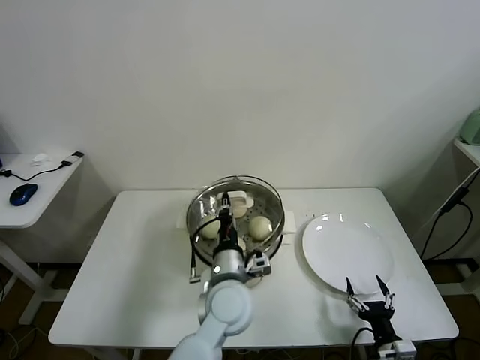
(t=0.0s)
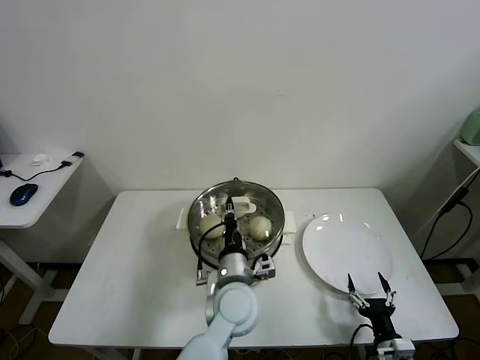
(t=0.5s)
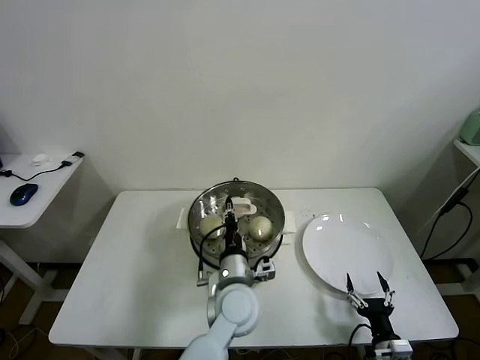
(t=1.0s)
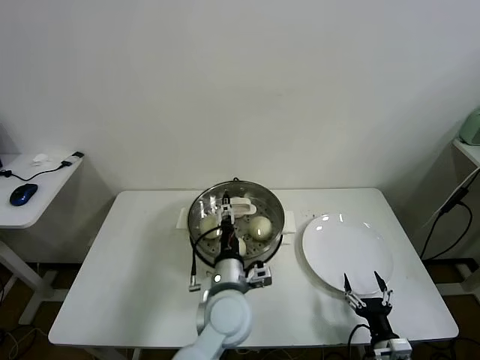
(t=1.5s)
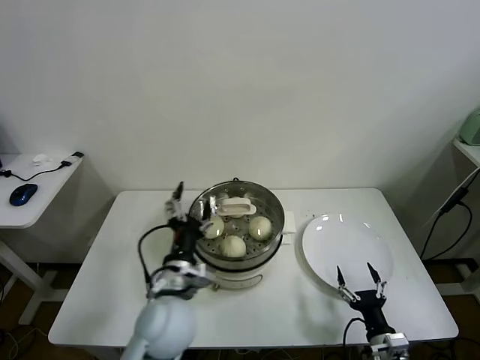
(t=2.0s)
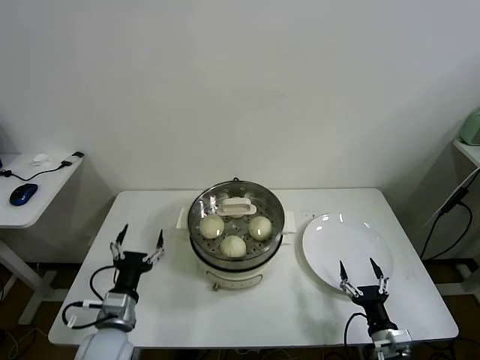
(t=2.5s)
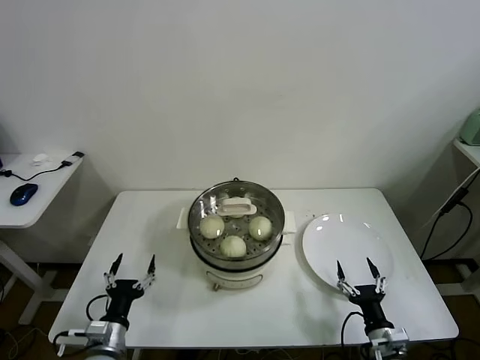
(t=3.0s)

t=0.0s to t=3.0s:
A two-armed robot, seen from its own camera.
Task of the whole recording: take steamed baozi put them in steamer.
t=0.0s to t=1.5s: The left gripper opens its fingers.
t=1.5s to t=3.0s: The left gripper goes about 30 cm to the left.

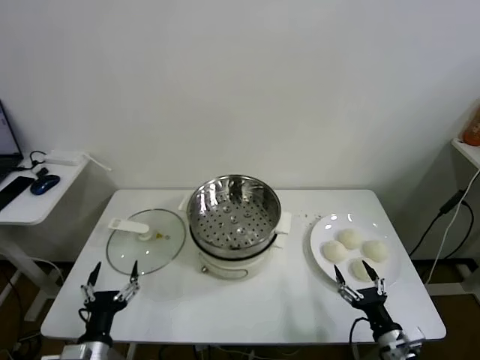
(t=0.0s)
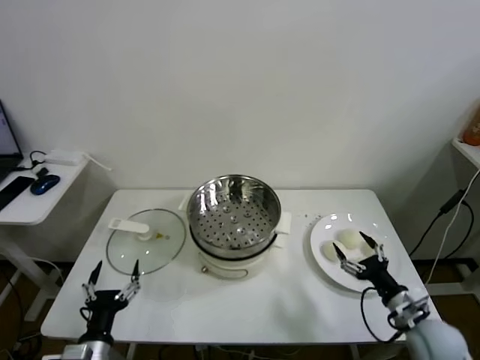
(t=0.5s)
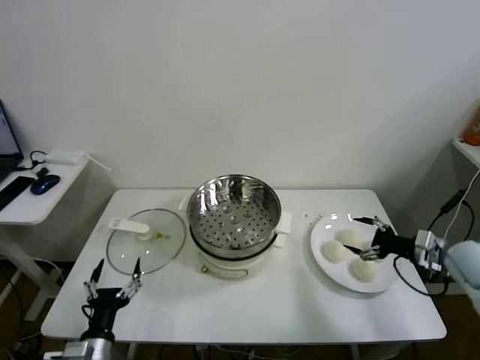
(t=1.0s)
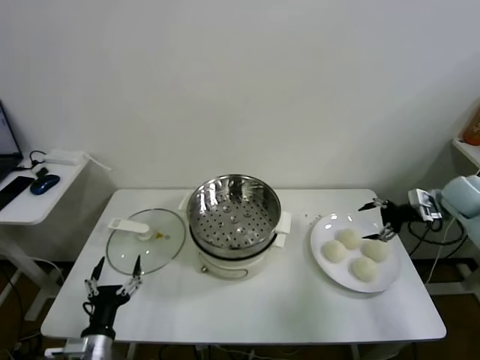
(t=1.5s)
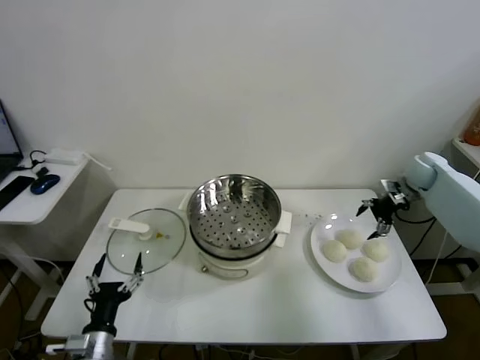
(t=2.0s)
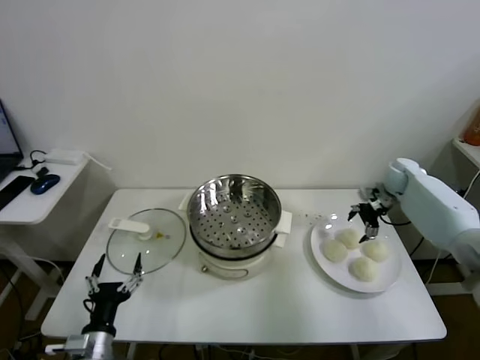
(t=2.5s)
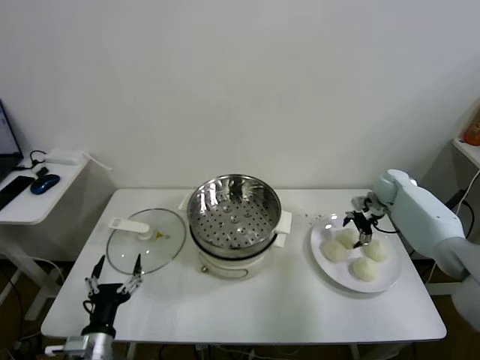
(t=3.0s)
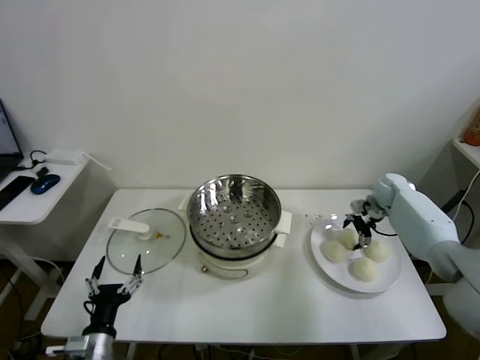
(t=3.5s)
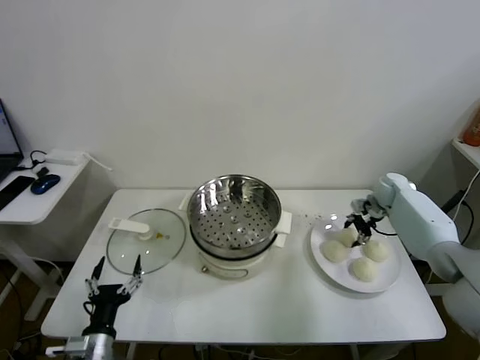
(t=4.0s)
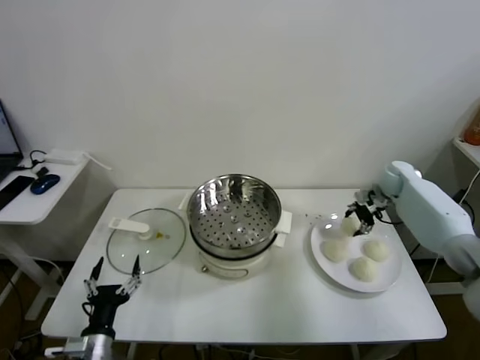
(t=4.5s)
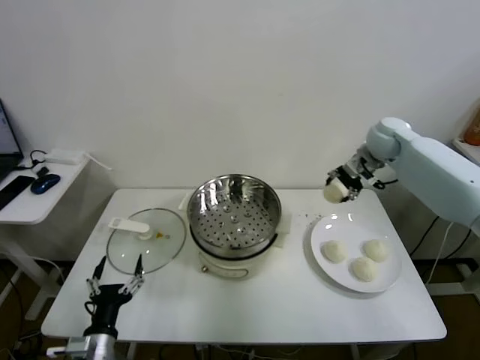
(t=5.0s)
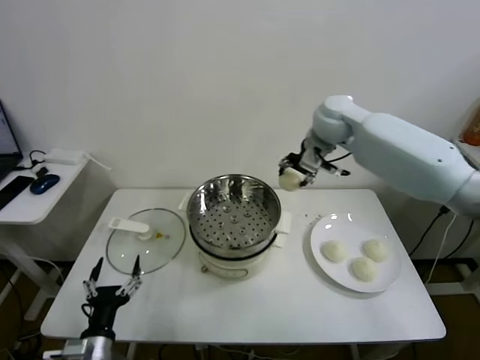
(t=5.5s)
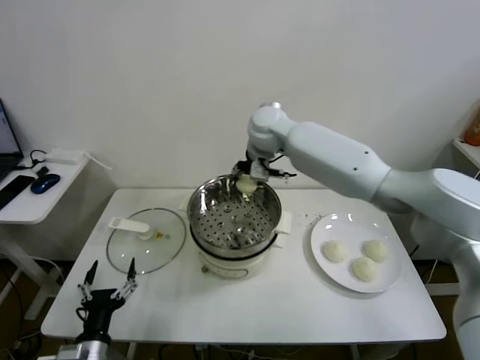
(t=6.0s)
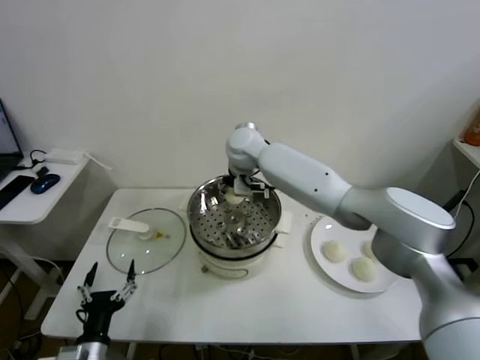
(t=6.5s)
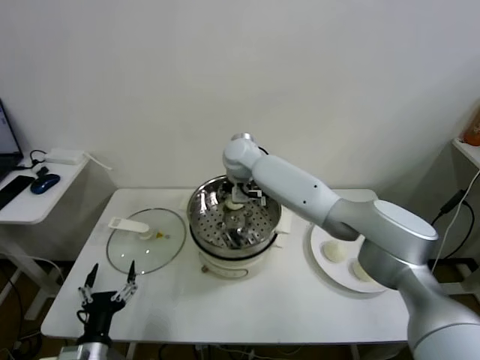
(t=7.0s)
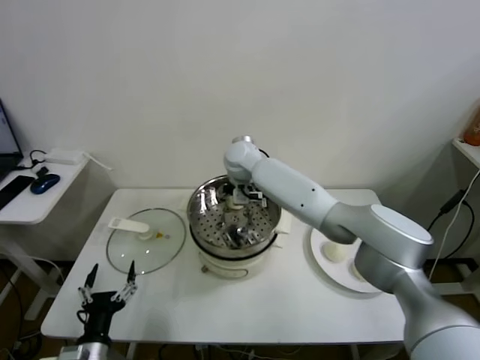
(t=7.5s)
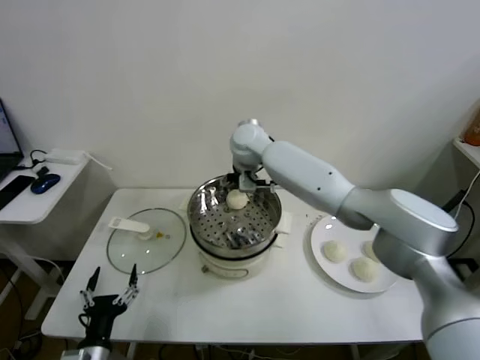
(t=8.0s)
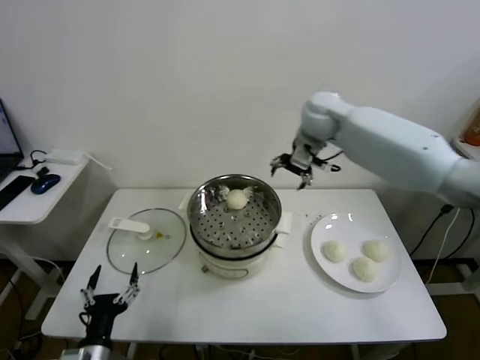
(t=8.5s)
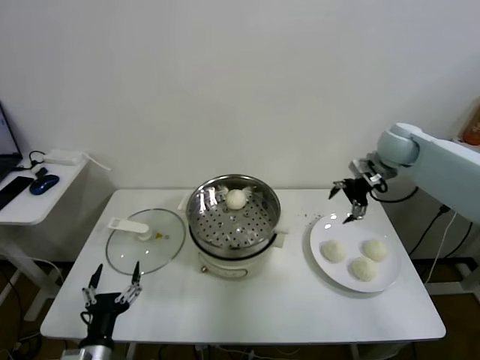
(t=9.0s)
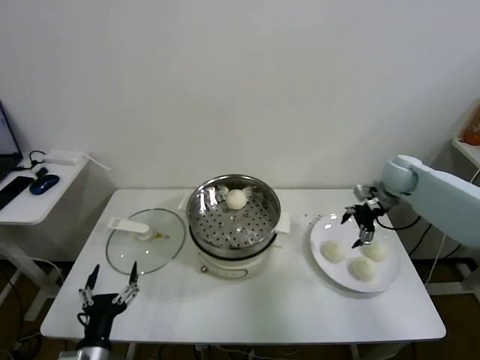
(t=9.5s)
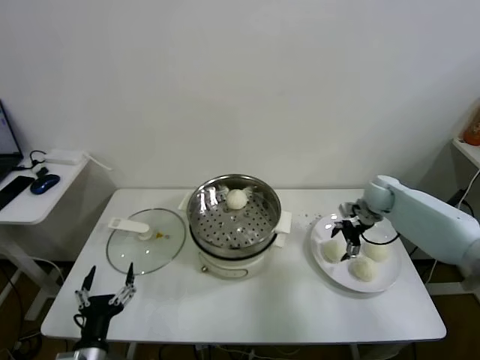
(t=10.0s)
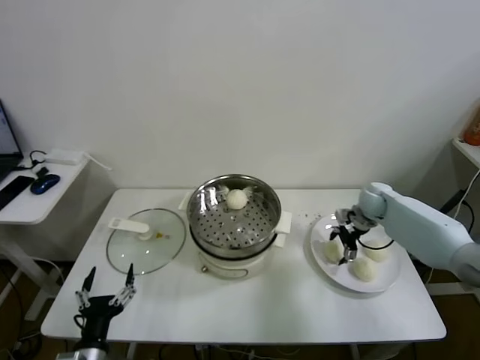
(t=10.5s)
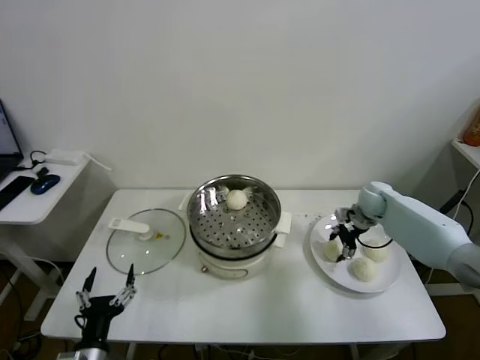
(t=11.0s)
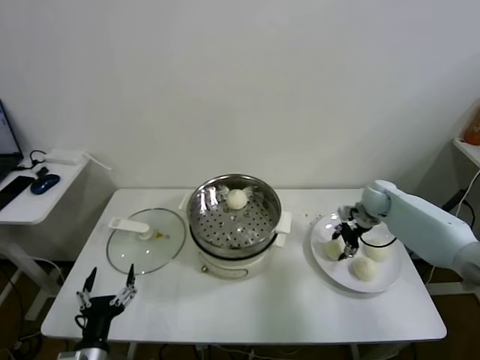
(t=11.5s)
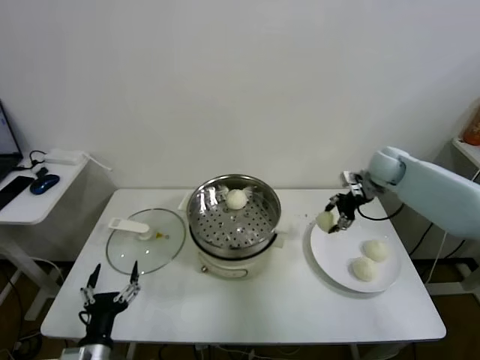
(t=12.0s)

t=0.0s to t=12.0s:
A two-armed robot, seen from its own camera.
Task of the whole recording: take steamed baozi put them in steamer.
Step, t=0.0s to t=3.5s: Grasp the baozi in the plate with right gripper.
Step, t=4.0s to t=7.5s: Place the baozi on the steamer with right gripper.
Step, t=8.0s to t=10.5s: Grasp the baozi in the plate with right gripper.
t=2.0s to t=4.0s: The right gripper shifts approximately 10 cm downward, and closes.
t=4.0s to t=6.0s: The right gripper shifts about 40 cm to the left and upward.
t=6.0s to t=8.0s: The right gripper travels downward and back again, about 10 cm each way, and opens its fingers.
t=8.0s to t=10.0s: The right gripper is displaced to the right and downward by some 40 cm.
t=10.0s to t=12.0s: The right gripper travels upward by approximately 10 cm, and closes.

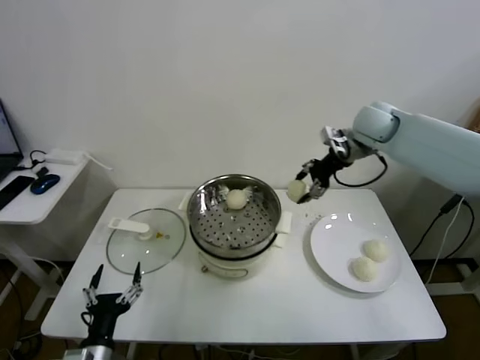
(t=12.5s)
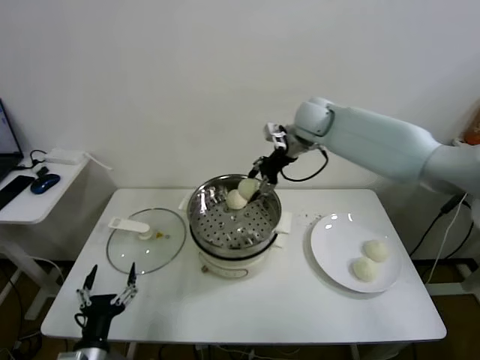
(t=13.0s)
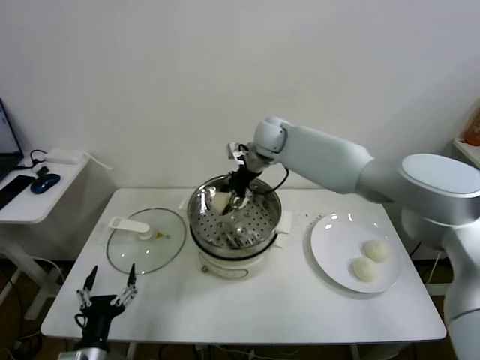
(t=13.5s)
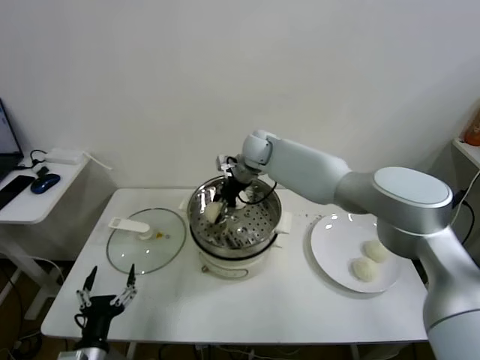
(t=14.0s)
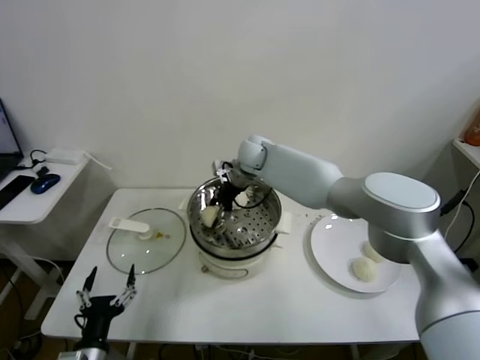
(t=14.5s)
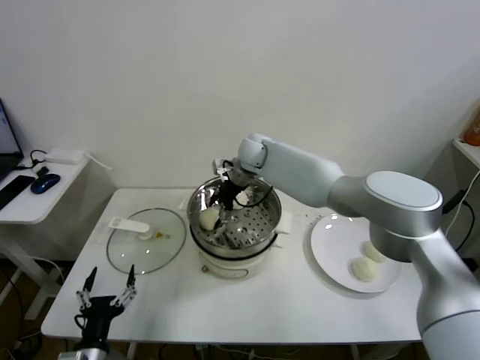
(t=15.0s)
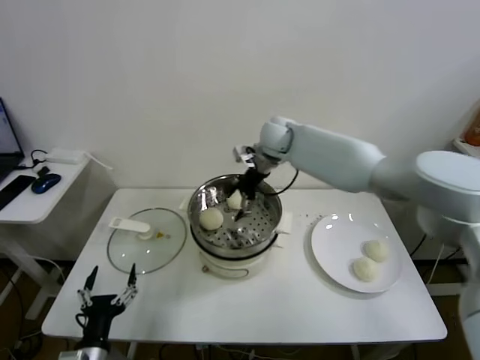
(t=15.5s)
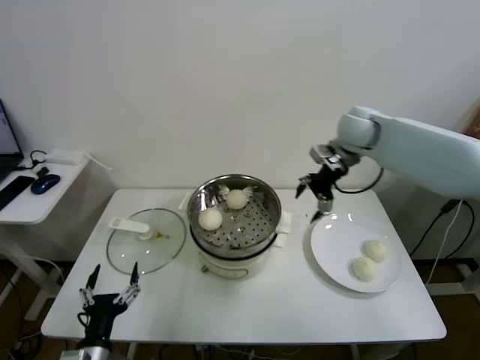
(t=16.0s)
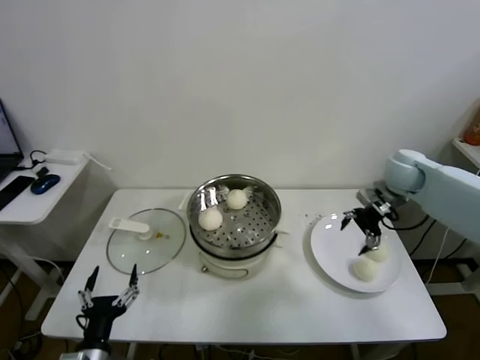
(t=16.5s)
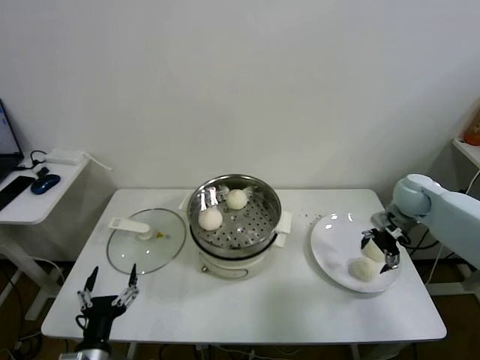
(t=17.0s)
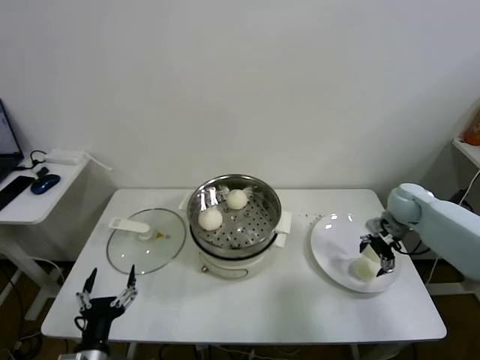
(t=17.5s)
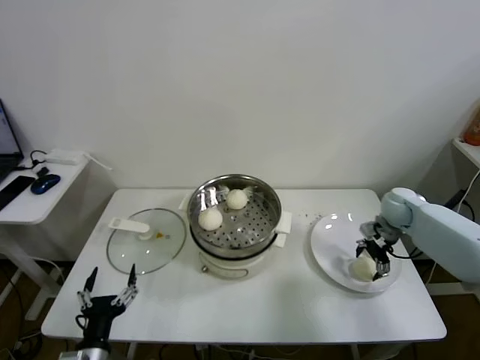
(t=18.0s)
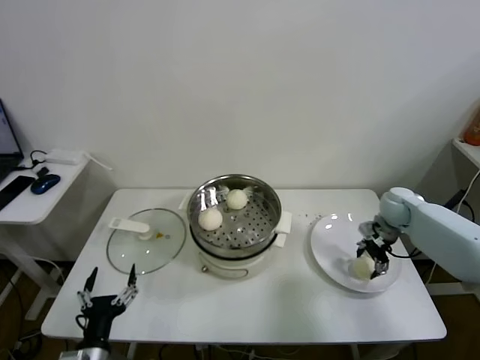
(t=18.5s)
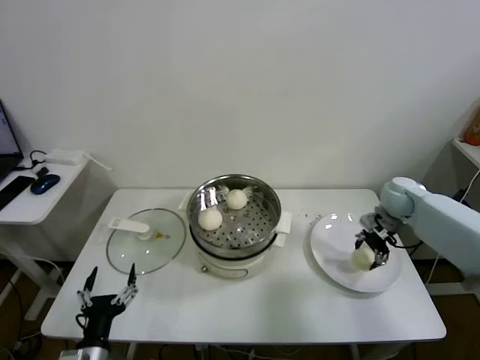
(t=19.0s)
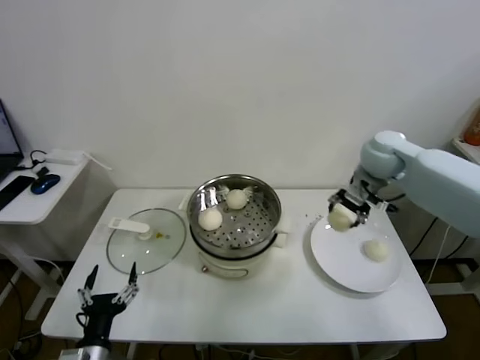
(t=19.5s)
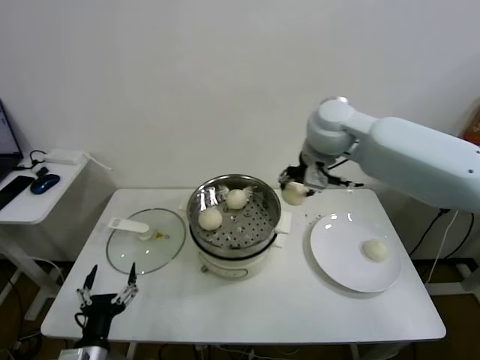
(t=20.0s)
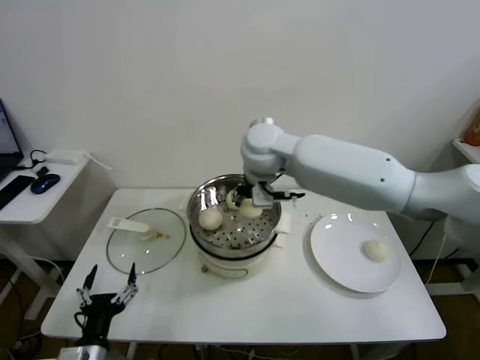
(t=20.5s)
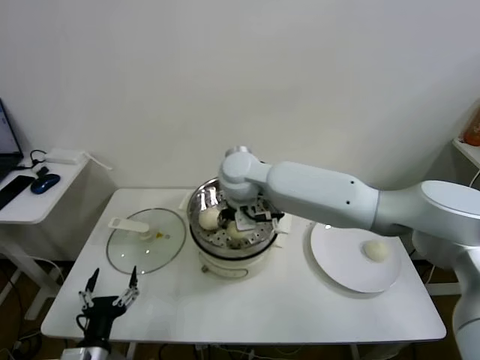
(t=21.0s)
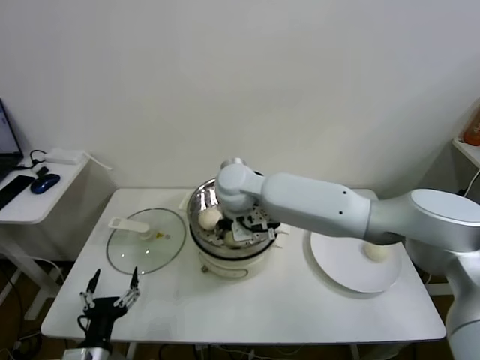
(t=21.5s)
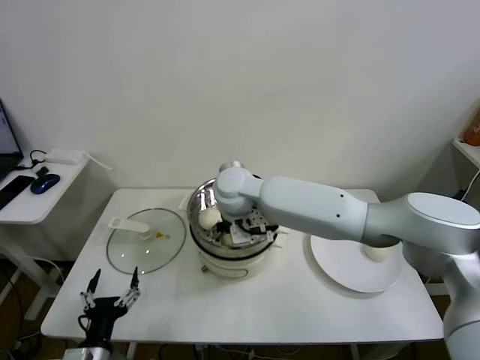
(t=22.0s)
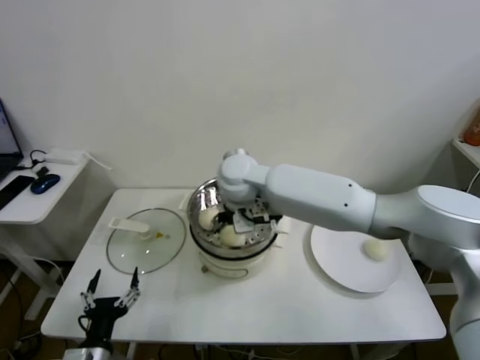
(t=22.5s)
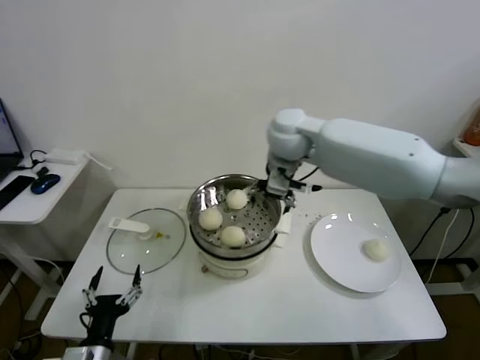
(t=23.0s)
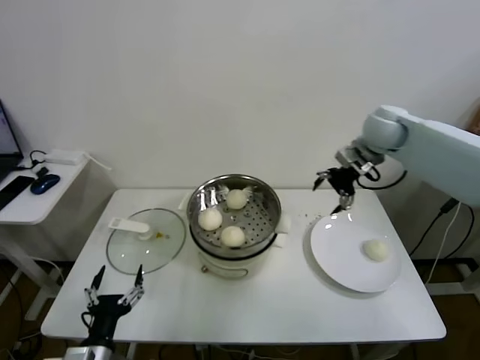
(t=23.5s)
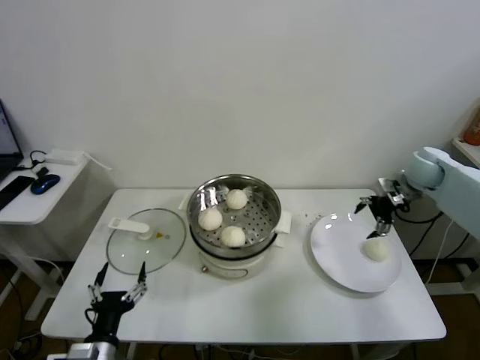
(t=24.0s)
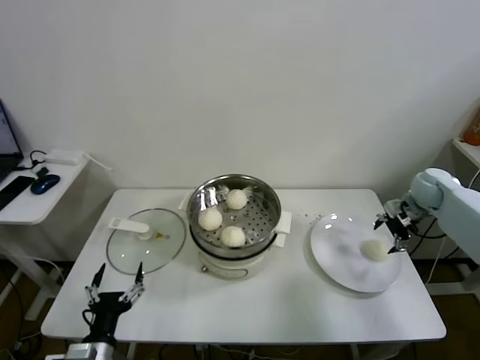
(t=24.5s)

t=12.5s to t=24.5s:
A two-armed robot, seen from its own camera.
Task of the whole recording: take steamed baozi put them in steamer.
Step, t=12.5s to t=15.0s: Place the baozi on the steamer with right gripper.
Step, t=15.5s to t=18.5s: Grasp the baozi in the plate with right gripper.
Step, t=19.0s to t=22.0s: Place the baozi on the steamer with right gripper.
t=12.5s to t=14.5s: The right gripper travels to the left and downward by some 25 cm.
t=14.5s to t=16.5s: The right gripper shifts roughly 35 cm to the right, and opens its fingers.
t=16.5s to t=18.5s: The right gripper shifts some 10 cm downward, and closes.
t=18.5s to t=20.5s: The right gripper goes about 40 cm to the left and upward.
t=20.5s to t=22.5s: The right gripper is displaced downward by some 5 cm, and opens.
t=22.5s to t=24.5s: The right gripper goes some 50 cm to the right.
